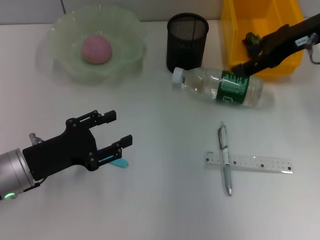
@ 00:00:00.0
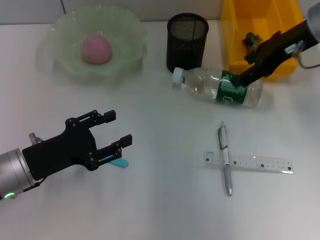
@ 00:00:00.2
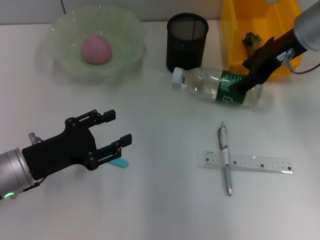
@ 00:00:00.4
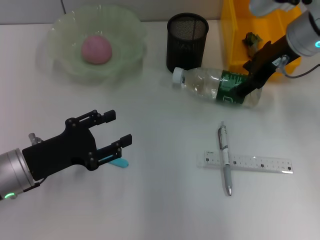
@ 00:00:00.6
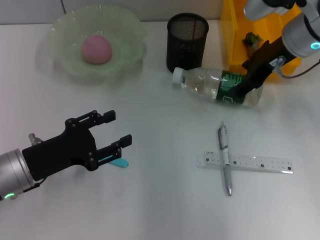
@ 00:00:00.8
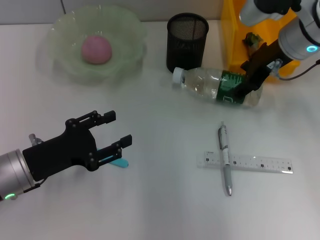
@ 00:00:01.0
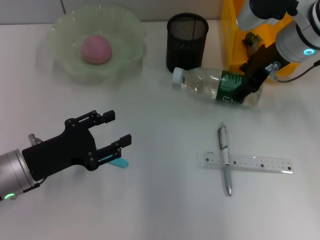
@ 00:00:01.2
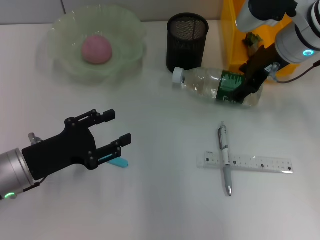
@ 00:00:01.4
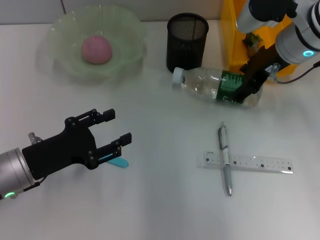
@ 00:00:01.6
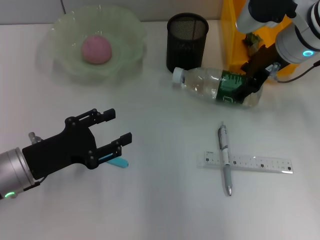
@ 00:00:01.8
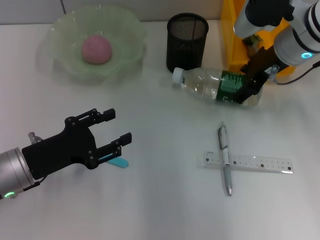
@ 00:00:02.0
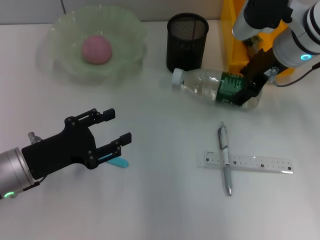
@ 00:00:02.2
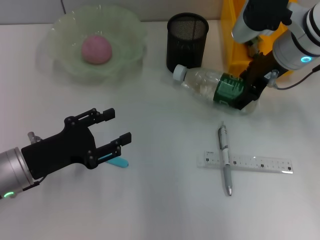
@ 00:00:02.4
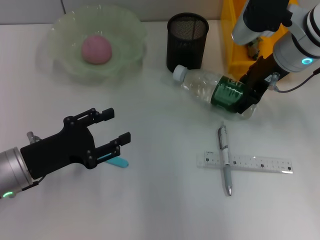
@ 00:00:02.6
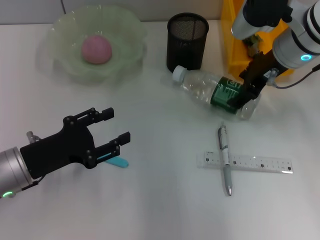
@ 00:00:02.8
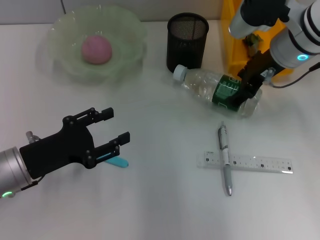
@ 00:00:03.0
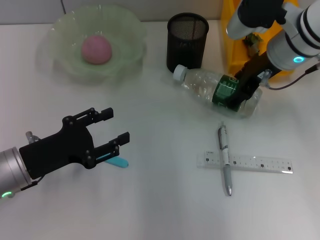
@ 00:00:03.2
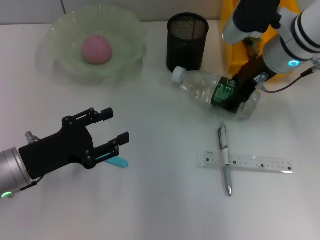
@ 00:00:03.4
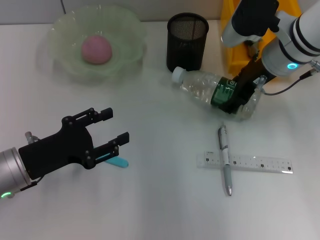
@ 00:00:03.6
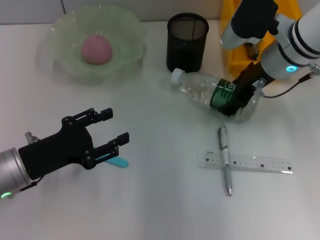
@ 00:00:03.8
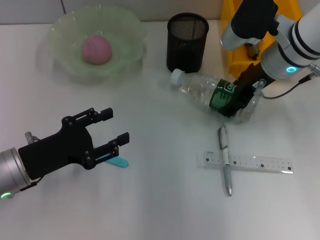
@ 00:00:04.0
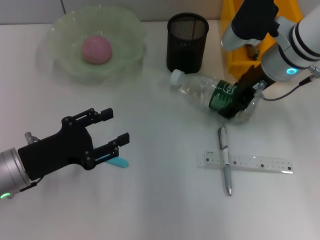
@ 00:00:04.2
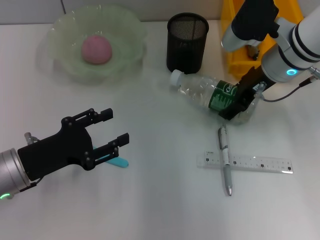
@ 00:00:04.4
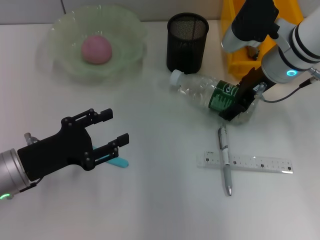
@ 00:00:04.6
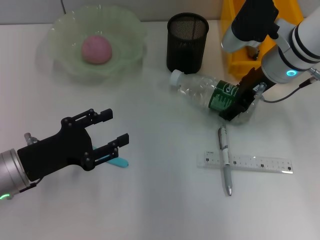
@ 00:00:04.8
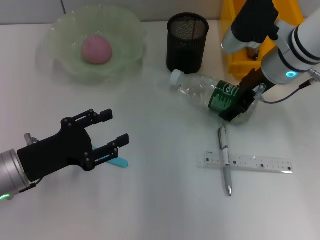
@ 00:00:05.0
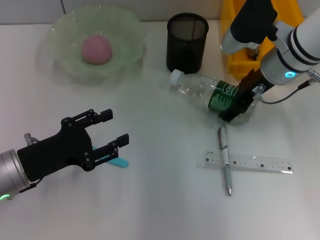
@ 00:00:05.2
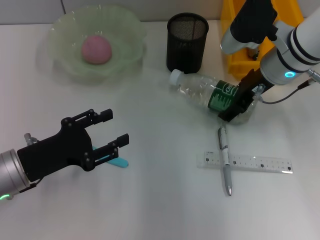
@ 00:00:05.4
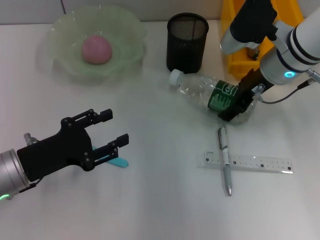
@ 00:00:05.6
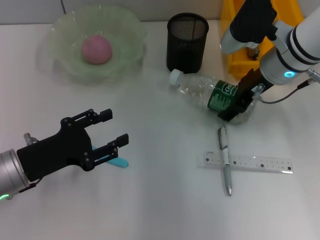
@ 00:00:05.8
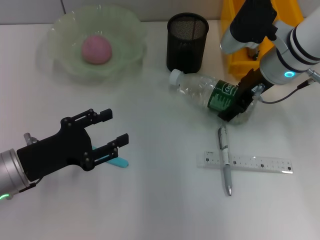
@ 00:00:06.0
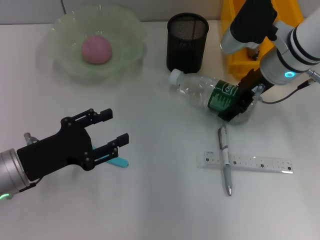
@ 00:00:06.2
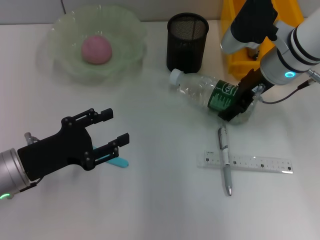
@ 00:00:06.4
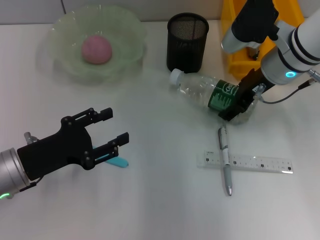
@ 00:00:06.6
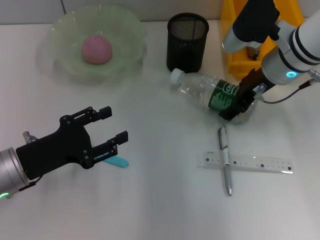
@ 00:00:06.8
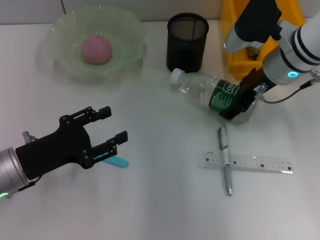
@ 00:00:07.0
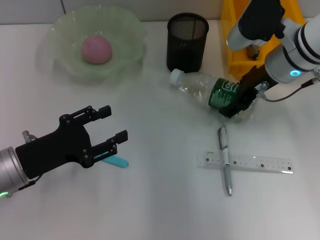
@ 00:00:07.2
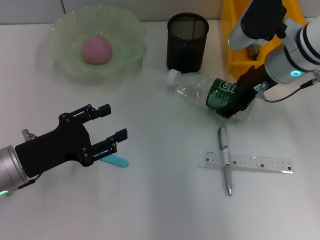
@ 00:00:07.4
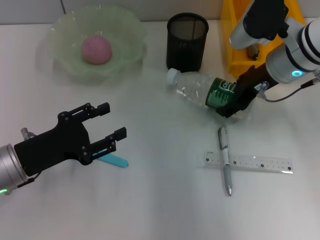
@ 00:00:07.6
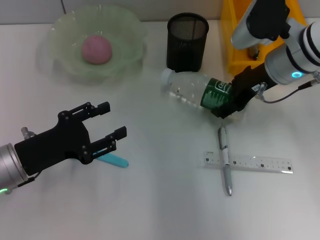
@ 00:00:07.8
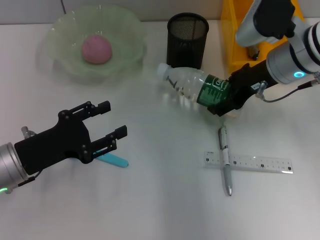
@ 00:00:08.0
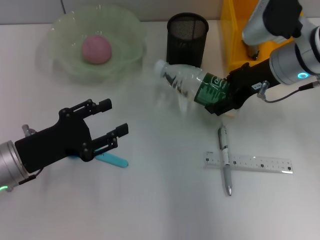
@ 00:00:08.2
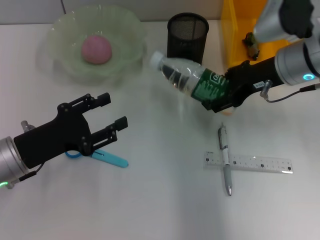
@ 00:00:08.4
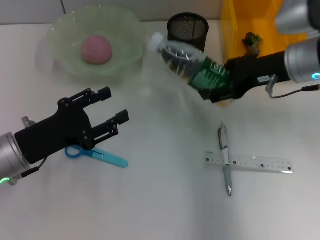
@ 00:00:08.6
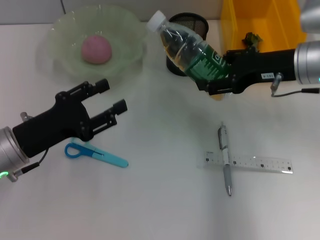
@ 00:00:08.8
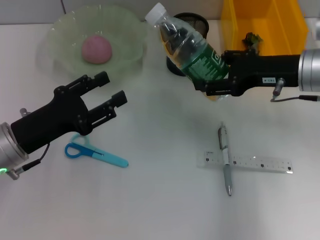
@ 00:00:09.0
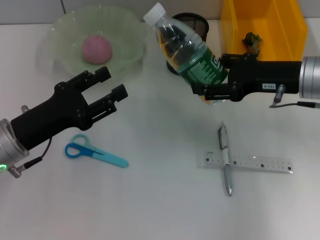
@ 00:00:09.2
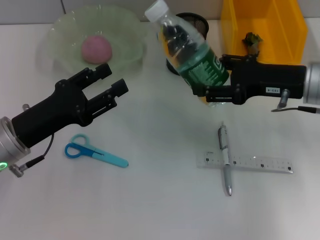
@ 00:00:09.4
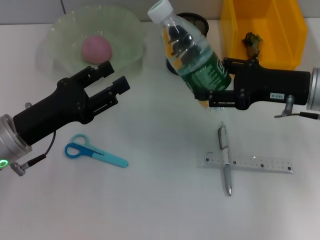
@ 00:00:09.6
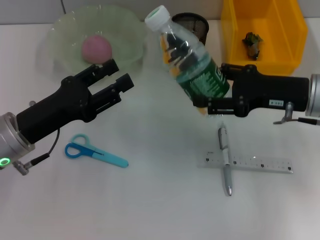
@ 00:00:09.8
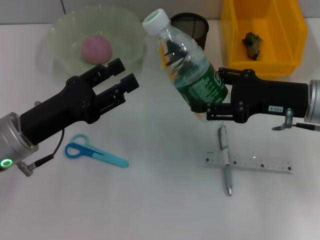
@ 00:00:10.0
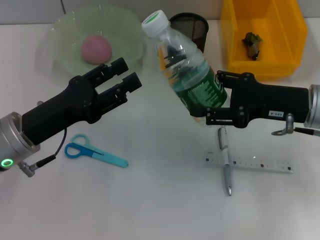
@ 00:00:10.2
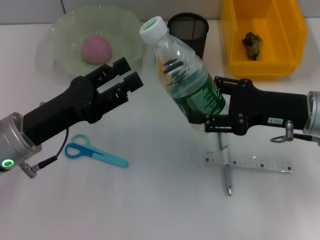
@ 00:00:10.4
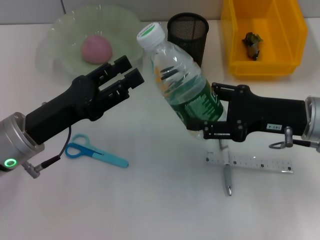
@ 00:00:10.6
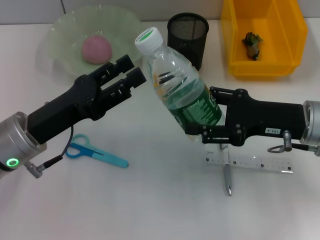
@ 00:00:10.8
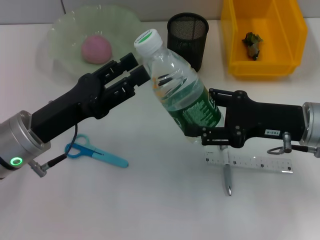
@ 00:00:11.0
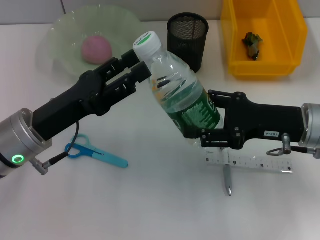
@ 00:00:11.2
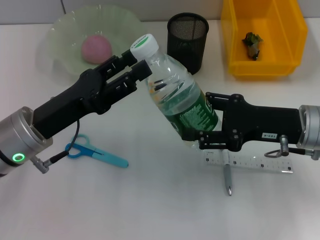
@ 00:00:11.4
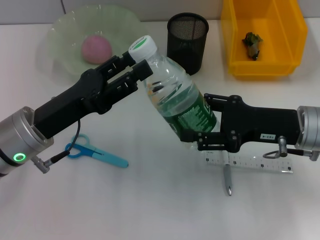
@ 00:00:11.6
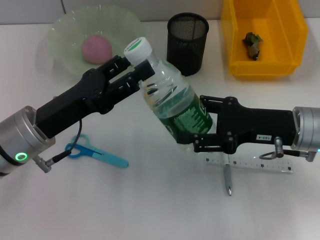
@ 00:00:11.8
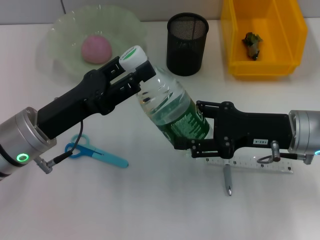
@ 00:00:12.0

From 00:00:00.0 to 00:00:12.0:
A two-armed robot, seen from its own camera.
Step, from 00:00:00.0 to 00:00:06.4: Grab the water bottle with the right hand.
From 00:00:00.0 to 00:00:01.6: The right gripper is displaced to the left by some 5 cm.
From 00:00:01.6 to 00:00:03.0: Both grippers stay put.
From 00:00:03.0 to 00:00:04.4: The grippers move only a little.
From 00:00:04.4 to 00:00:07.6: Both grippers stay put.
From 00:00:07.6 to 00:00:09.0: The right gripper shifts by about 5 cm.
From 00:00:09.0 to 00:00:10.4: The right gripper ends up some 5 cm from where it was.

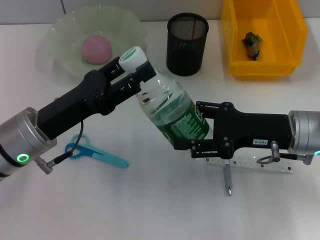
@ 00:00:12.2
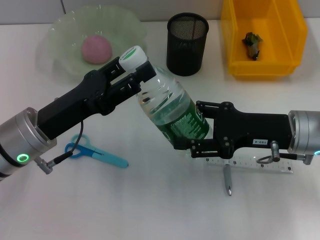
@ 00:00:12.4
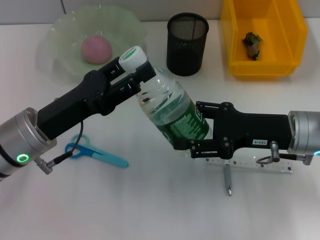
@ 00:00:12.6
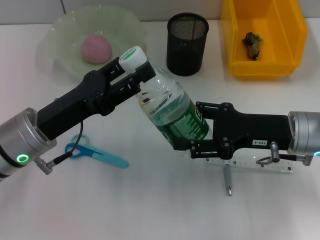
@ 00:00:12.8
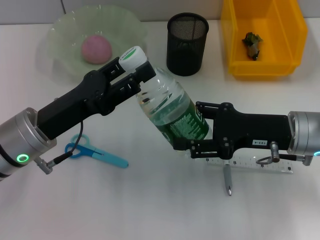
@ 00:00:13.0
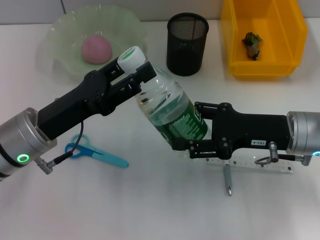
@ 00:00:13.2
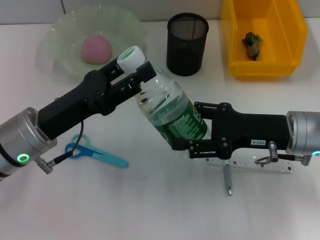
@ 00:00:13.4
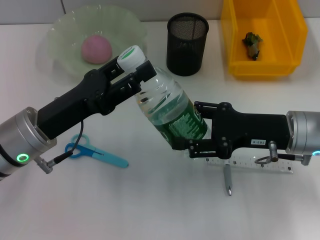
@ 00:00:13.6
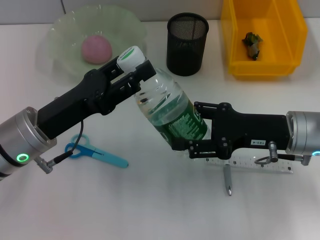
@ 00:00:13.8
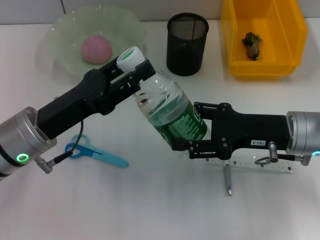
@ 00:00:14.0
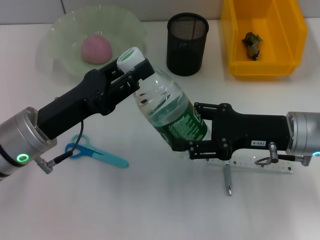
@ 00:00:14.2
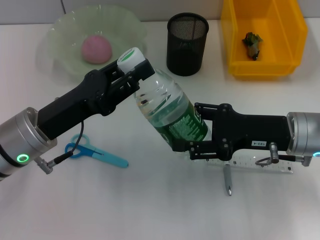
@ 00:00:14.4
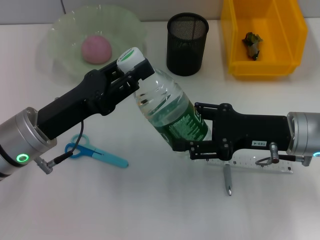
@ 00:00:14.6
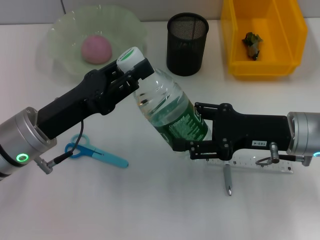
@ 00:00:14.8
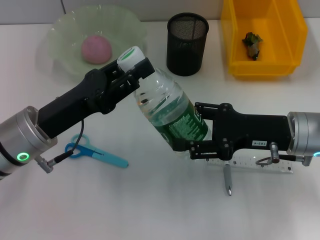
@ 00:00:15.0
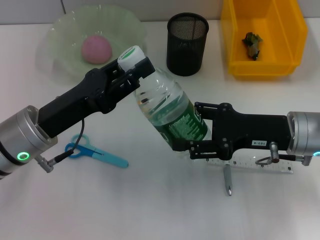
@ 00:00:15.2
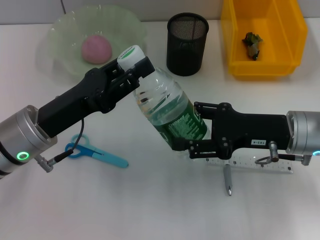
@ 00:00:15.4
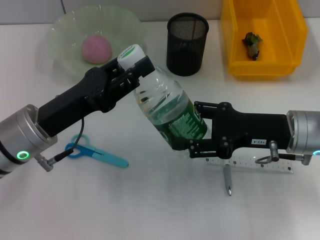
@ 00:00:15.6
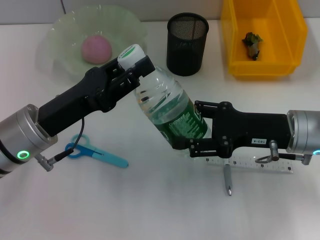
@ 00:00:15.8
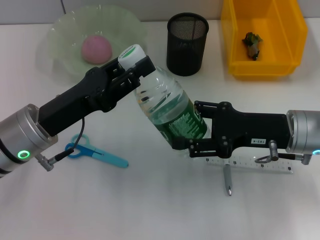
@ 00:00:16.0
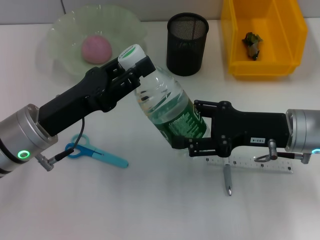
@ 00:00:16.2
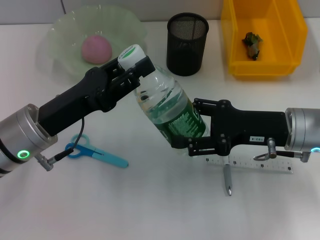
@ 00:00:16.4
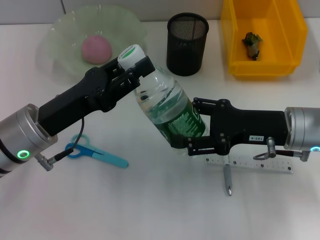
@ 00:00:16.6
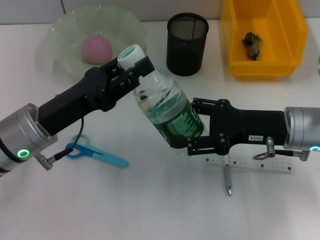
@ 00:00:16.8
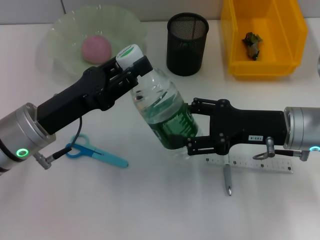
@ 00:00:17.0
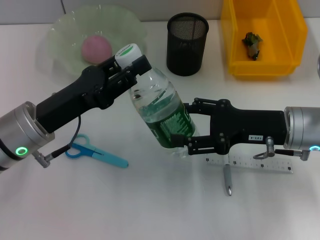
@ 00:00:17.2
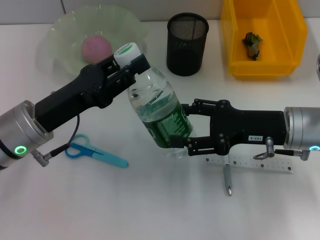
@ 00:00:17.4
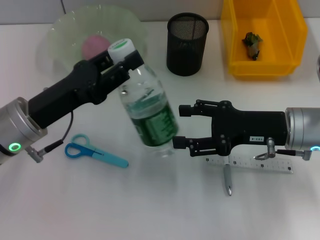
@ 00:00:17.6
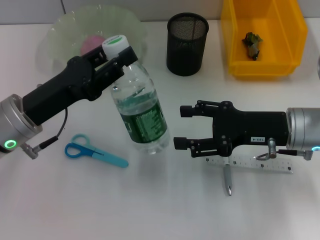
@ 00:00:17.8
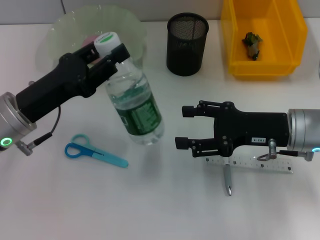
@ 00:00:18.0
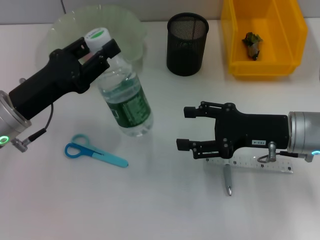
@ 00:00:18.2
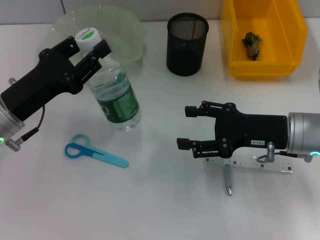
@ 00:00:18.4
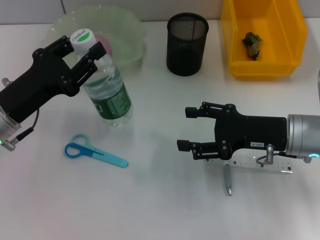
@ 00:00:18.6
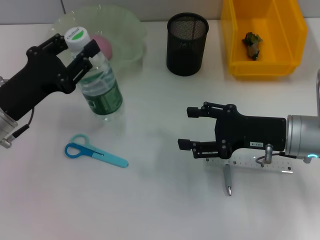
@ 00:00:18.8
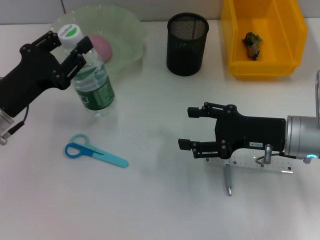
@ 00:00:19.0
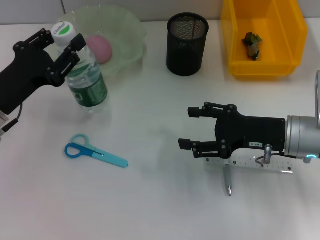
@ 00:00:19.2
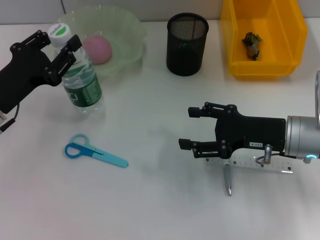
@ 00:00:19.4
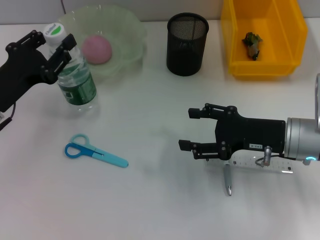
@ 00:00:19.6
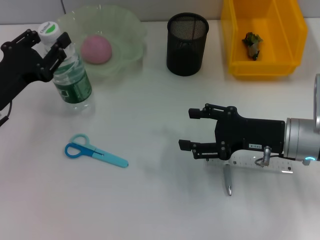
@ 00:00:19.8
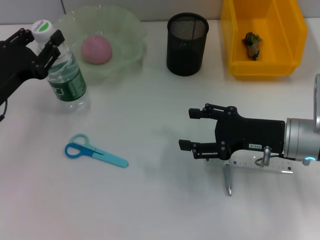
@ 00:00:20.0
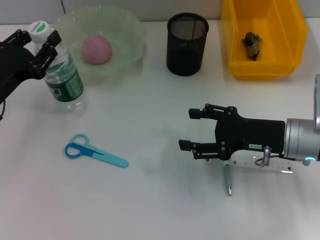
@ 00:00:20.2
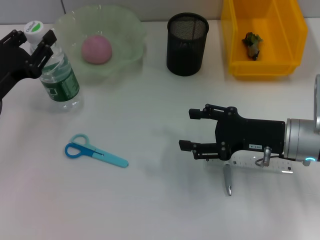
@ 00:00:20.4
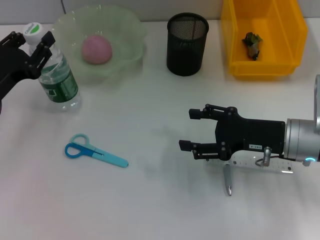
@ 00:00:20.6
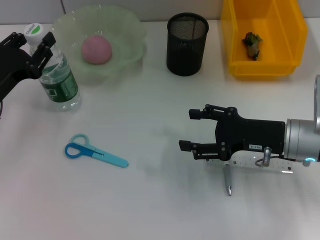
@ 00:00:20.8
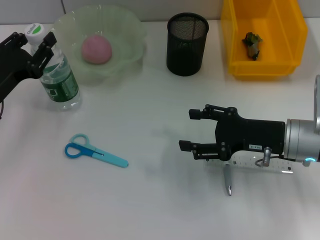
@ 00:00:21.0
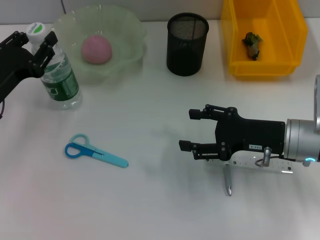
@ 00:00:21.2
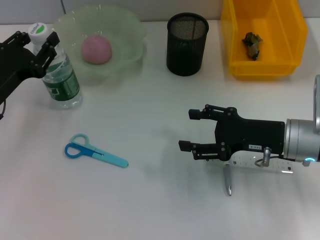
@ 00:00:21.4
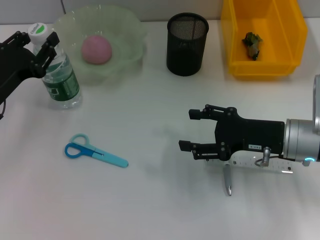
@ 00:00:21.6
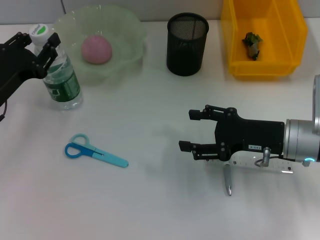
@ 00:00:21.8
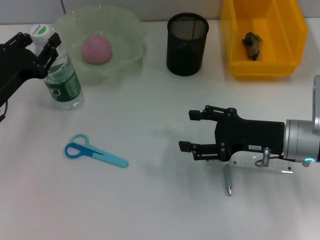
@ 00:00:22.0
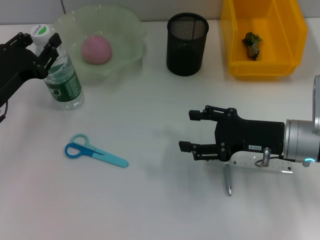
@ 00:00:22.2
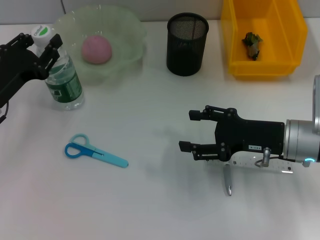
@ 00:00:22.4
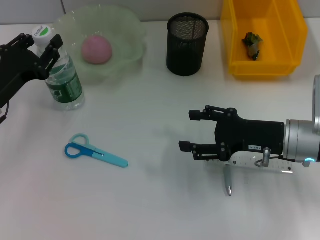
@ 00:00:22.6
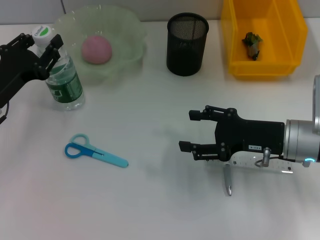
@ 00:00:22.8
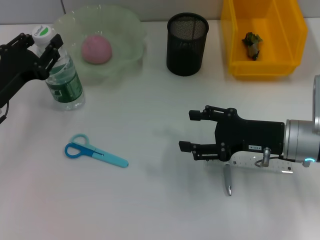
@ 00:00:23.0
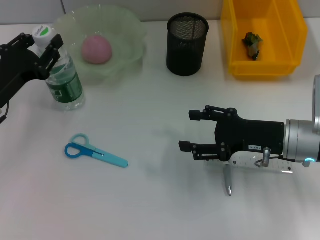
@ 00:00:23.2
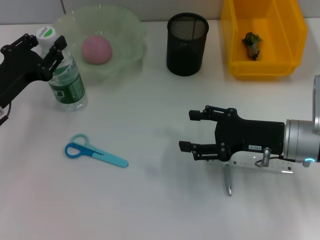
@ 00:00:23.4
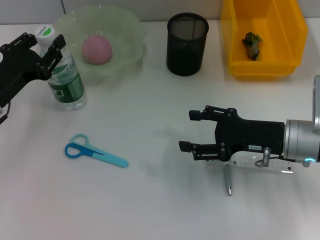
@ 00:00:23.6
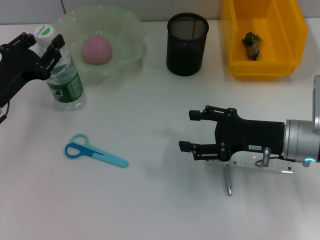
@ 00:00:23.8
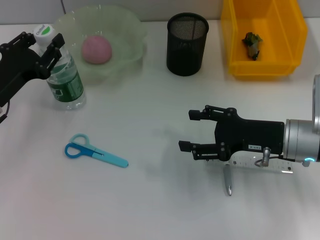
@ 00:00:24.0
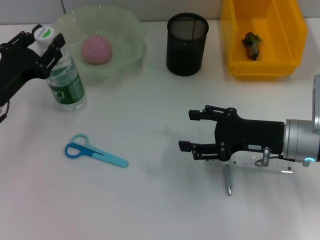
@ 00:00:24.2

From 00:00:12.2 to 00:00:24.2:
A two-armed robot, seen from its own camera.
Step, from 00:00:12.2 to 00:00:18.2: Pass the water bottle from the right hand to the left hand.
From 00:00:12.2 to 00:00:16.6: Both grippers stay about where they are.
From 00:00:19.8 to 00:00:21.2: The grippers move only a little.
From 00:00:21.2 to 00:00:24.2: Both grippers stay put.
